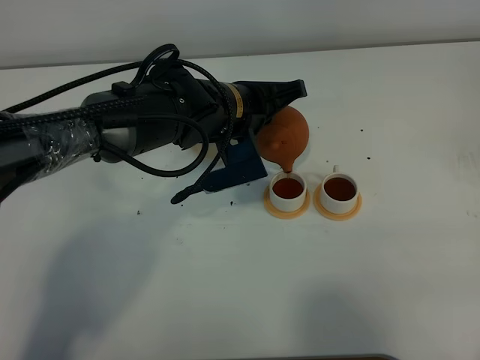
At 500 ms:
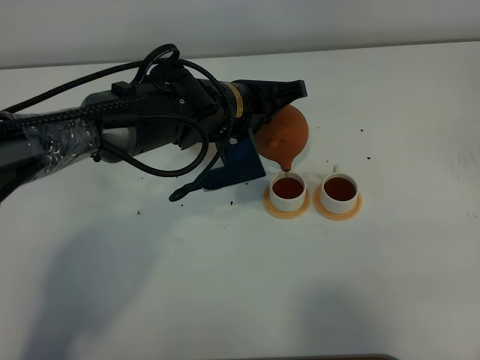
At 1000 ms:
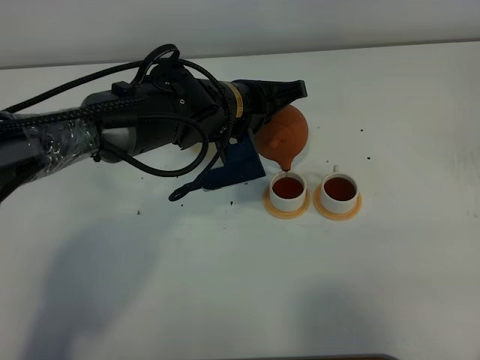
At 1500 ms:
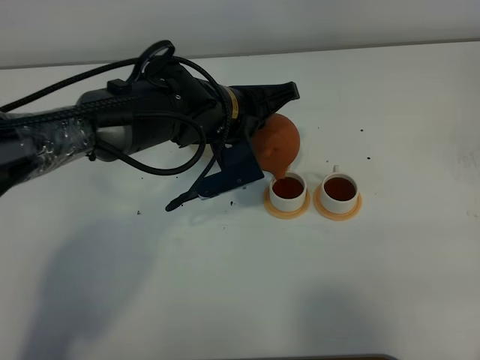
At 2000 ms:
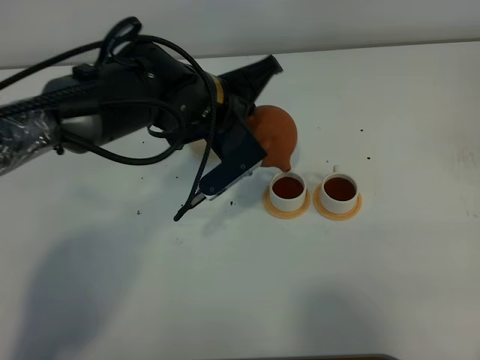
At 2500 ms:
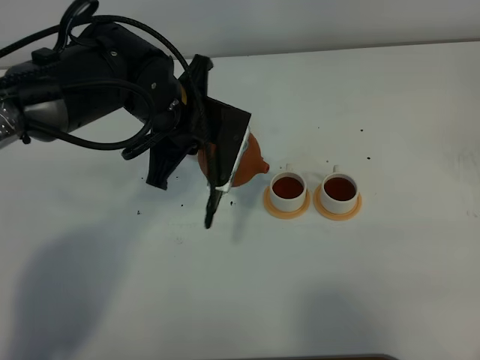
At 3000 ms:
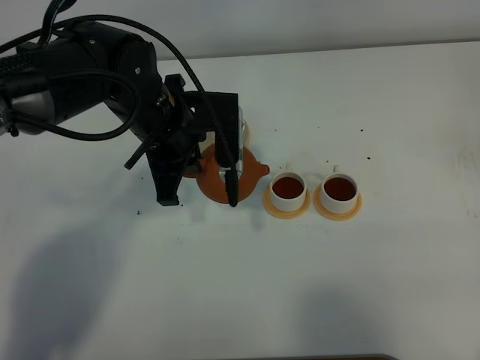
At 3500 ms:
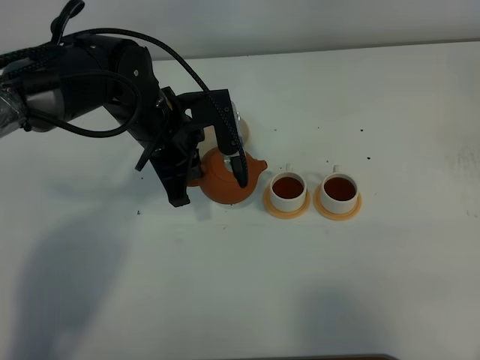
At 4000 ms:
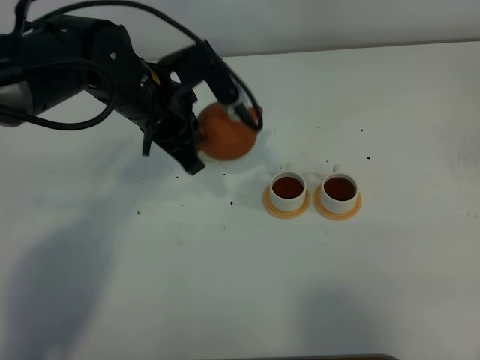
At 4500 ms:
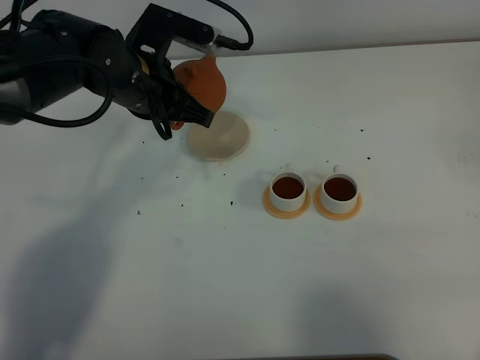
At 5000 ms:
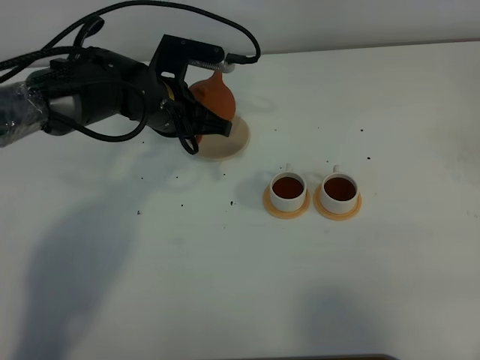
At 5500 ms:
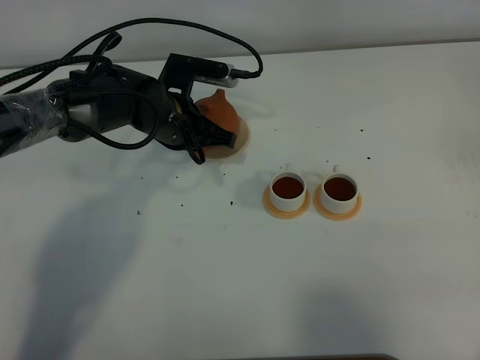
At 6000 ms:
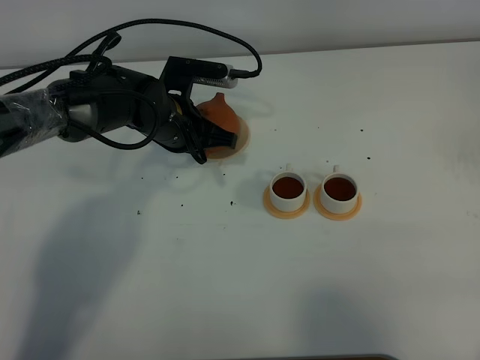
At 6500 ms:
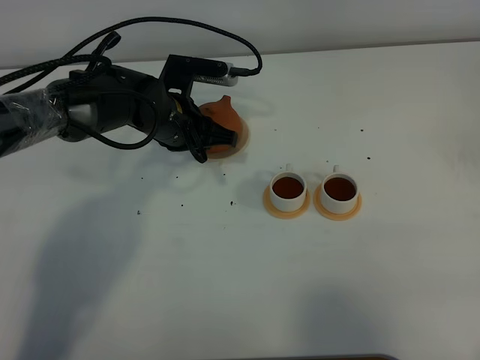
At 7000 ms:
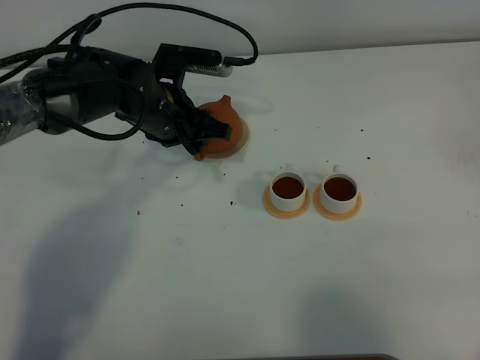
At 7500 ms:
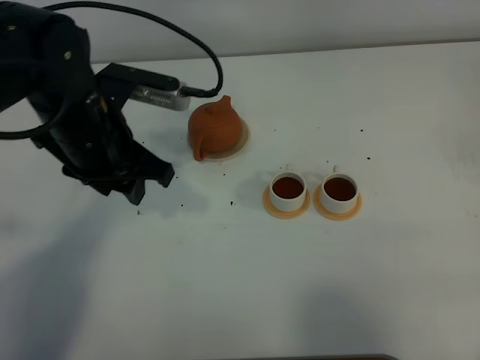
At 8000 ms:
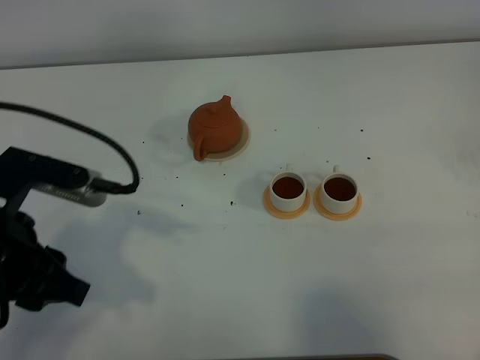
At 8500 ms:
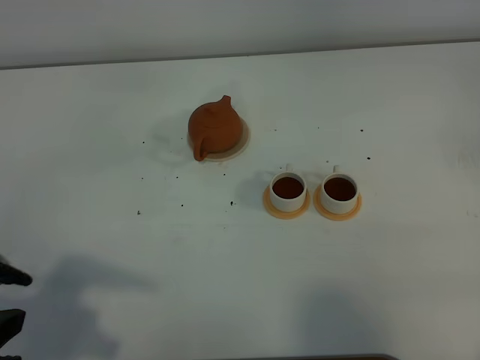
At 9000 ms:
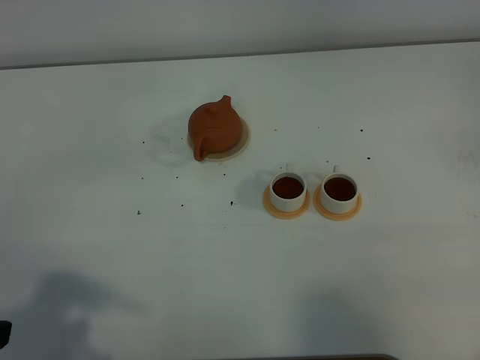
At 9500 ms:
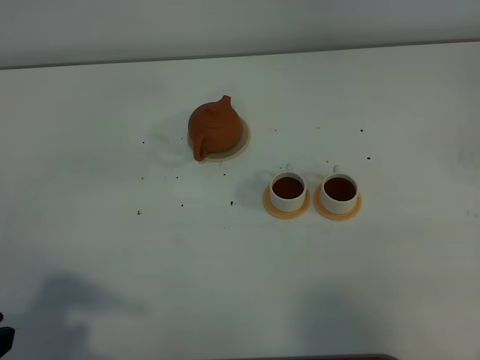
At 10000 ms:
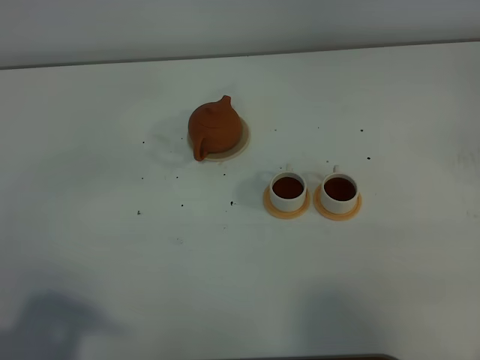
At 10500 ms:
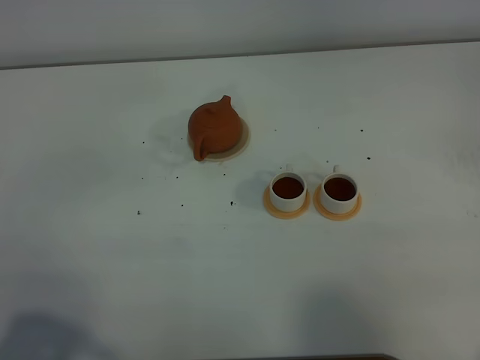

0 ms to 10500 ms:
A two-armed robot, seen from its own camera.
Task of the whole recording: grasp the brown teapot and pour the tea into the two white teacups one by one, put the brown teapot back in its original place.
2000 ms to 4000 ms: The left gripper heads to the left, covering roughly 5 cm.
4000 ms to 6500 ms: The left gripper goes about 10 cm downward, and opens.
6500 ms to 8500 ms: The left gripper travels backward, to the left and upward by some 40 cm.
8500 ms to 10500 ms: The left gripper is displaced backward by roughly 5 cm.
